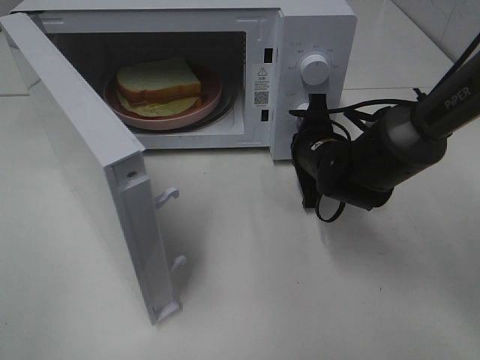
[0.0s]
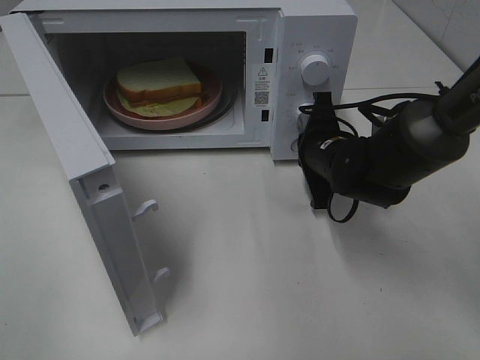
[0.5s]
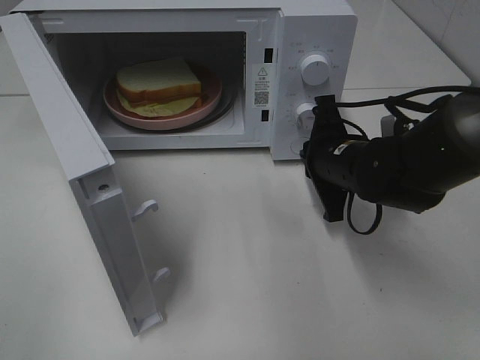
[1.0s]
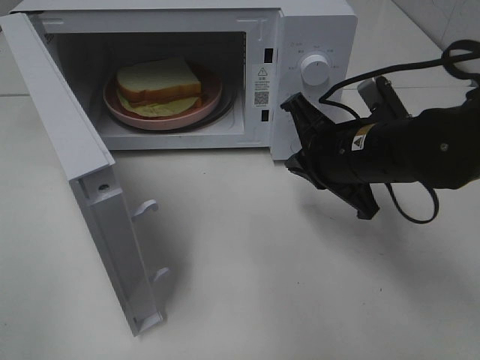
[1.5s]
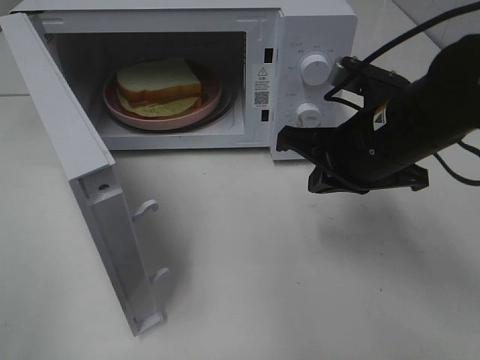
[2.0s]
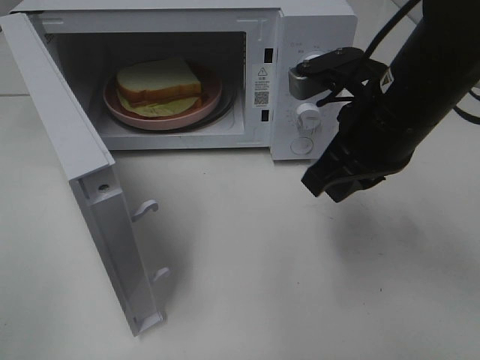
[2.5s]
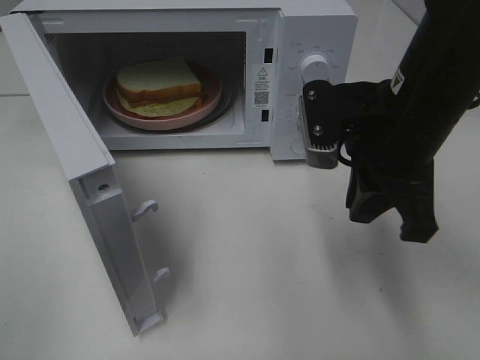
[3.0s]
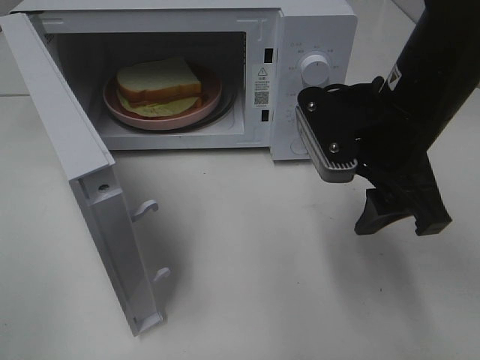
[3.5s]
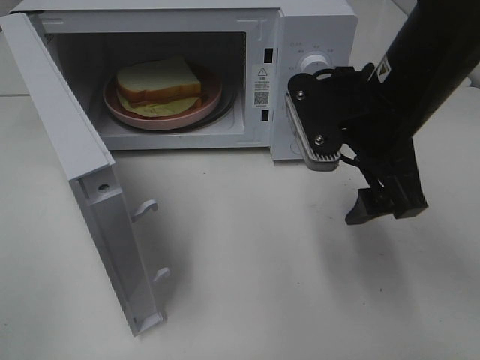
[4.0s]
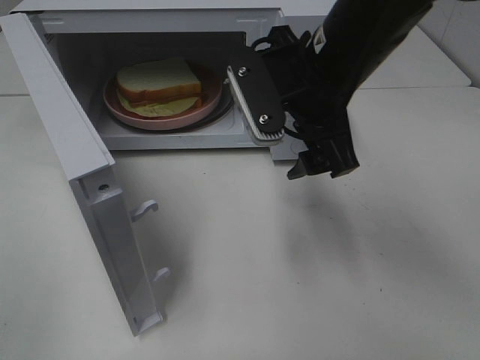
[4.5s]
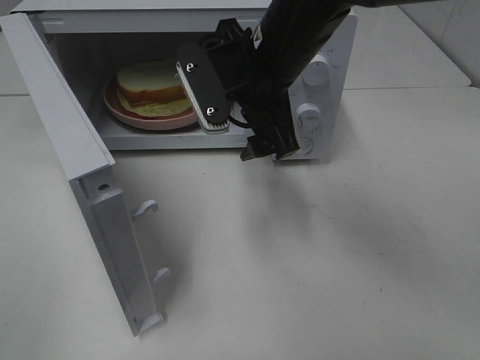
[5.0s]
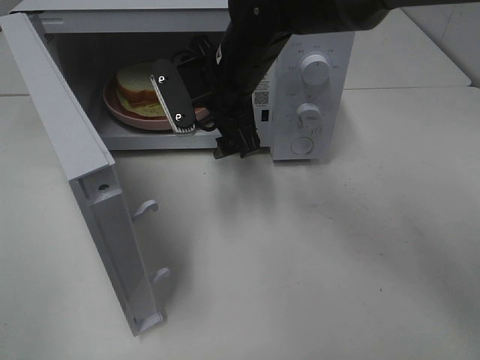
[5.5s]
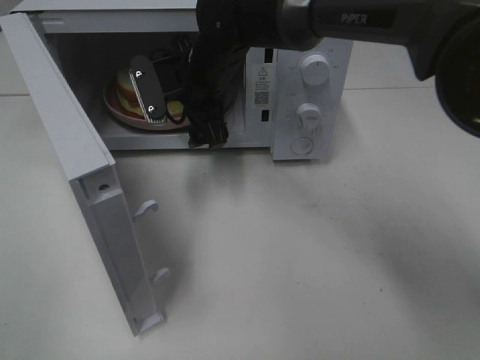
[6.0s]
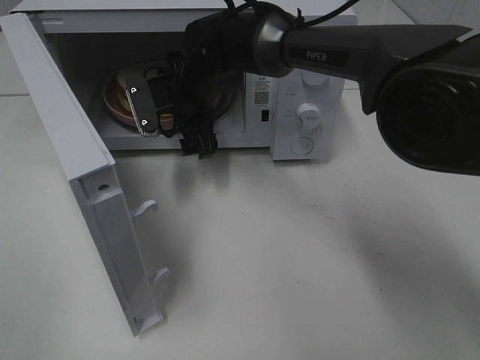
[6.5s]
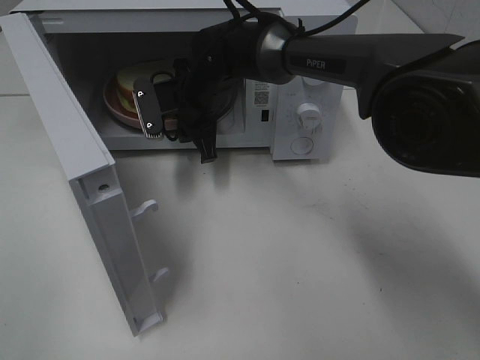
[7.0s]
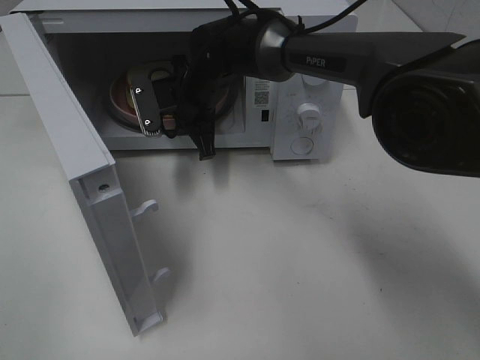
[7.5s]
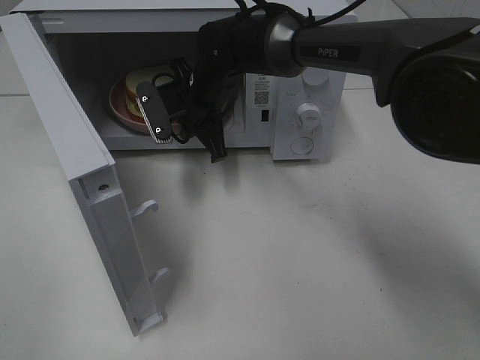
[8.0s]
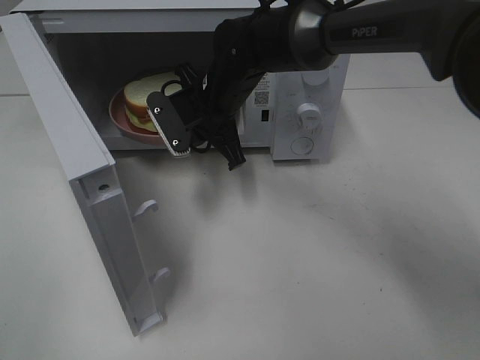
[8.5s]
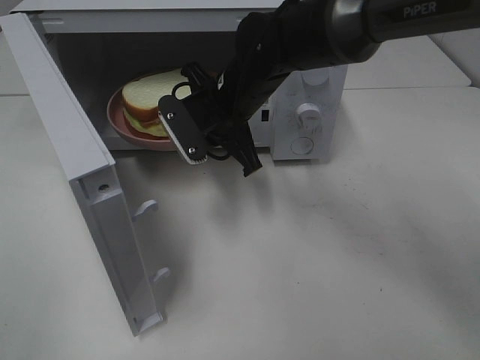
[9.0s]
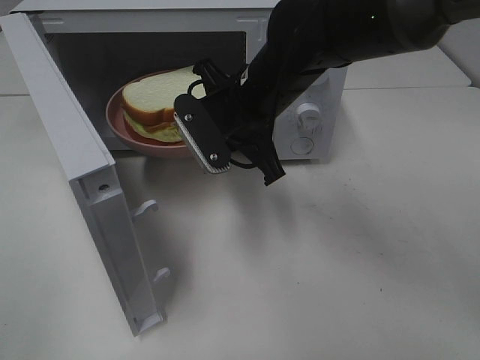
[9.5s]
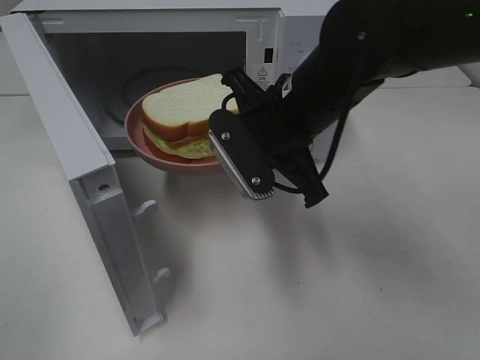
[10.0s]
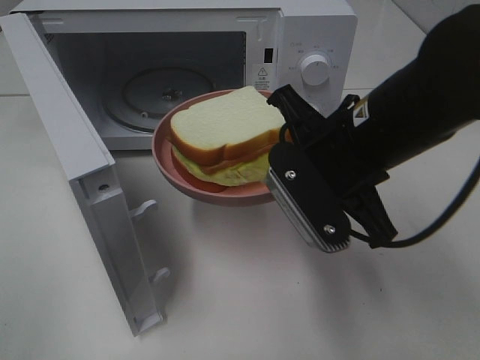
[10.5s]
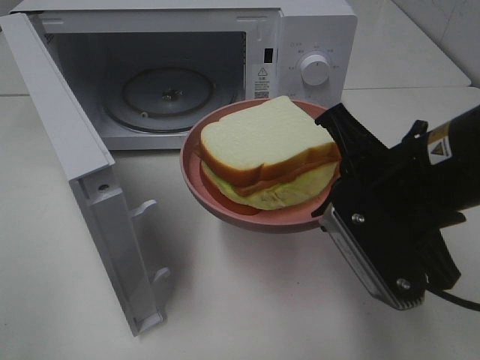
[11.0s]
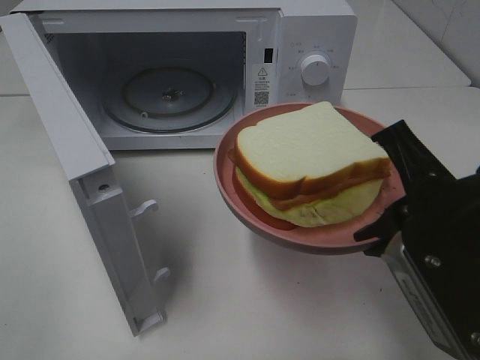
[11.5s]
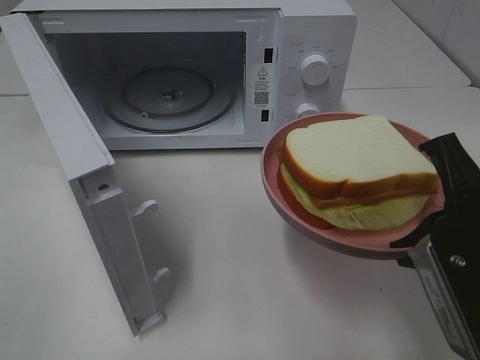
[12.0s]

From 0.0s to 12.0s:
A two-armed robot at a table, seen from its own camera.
Task of the whole recording: Heat Sandwich.
Step, from 1.5s to 7.5s: Right hand: grab the plate with the sandwich.
From 0.0s to 2.0s: The right gripper goes approximately 15 cm upward and backward.
From 2.0s to 4.0s: The right gripper opens up.
From 4.0s to 6.0s: The right gripper is displaced to the left and forward by roughly 25 cm.
From 6.0s to 8.0s: The right gripper closes its fingers.
From 8.0s to 10.0s: The right gripper goes about 20 cm backward, to the right and upward.
From 10.0s to 12.0s: The right gripper shifts approximately 20 cm backward and to the right.

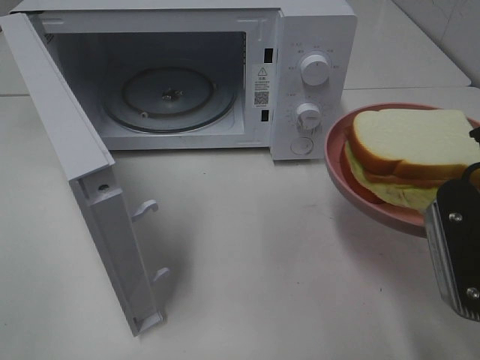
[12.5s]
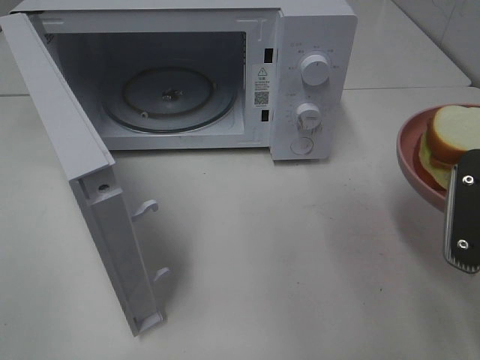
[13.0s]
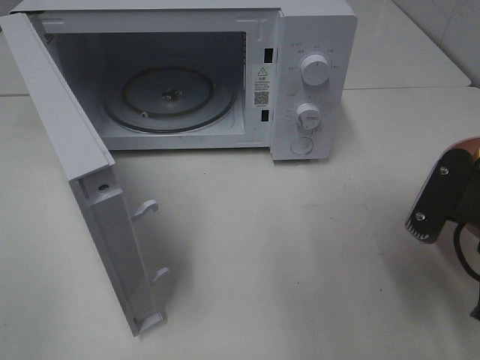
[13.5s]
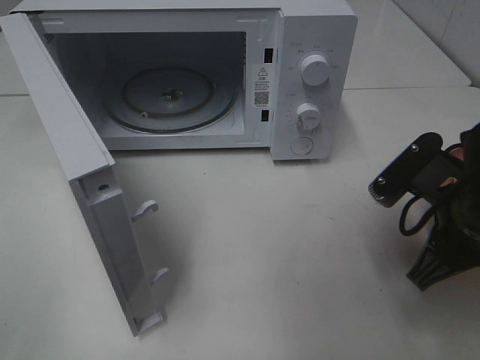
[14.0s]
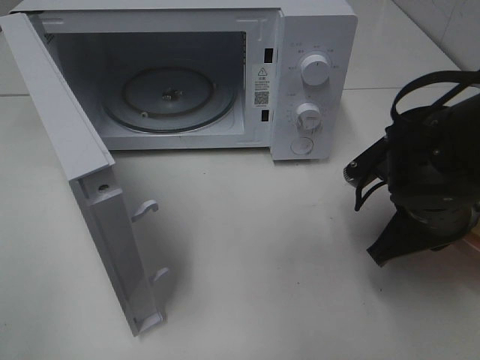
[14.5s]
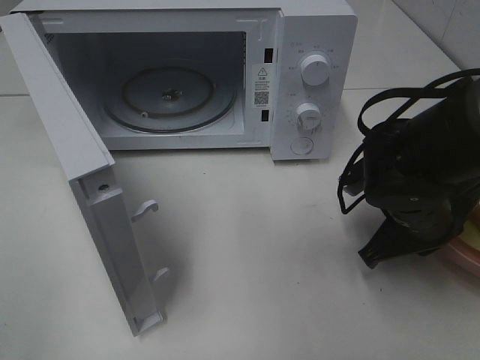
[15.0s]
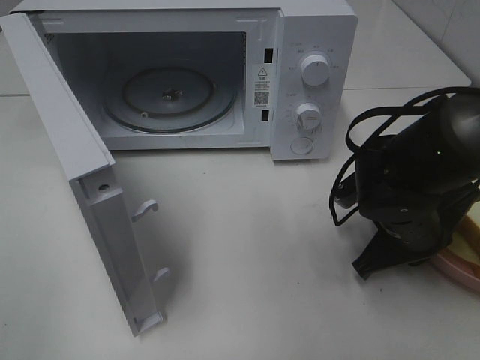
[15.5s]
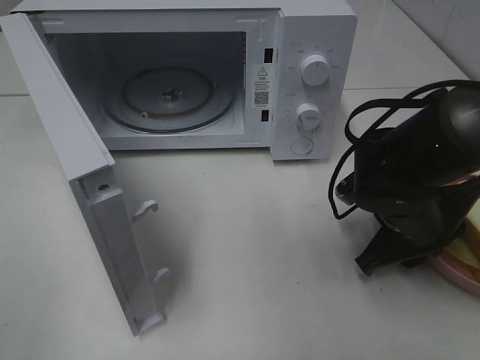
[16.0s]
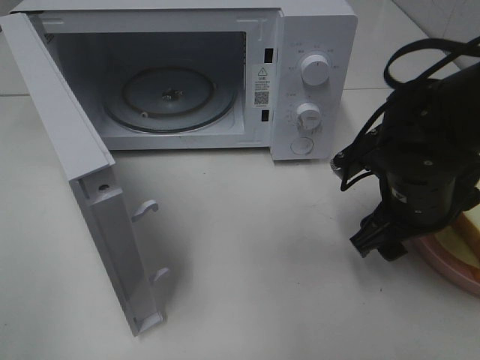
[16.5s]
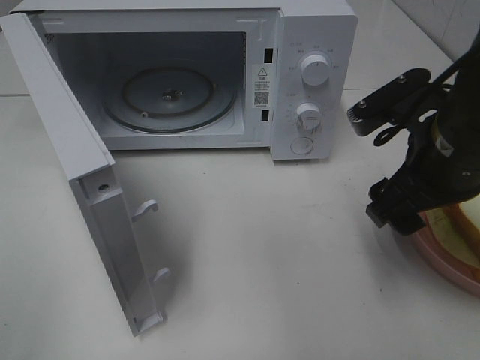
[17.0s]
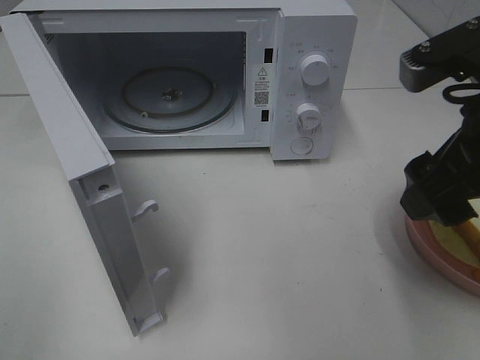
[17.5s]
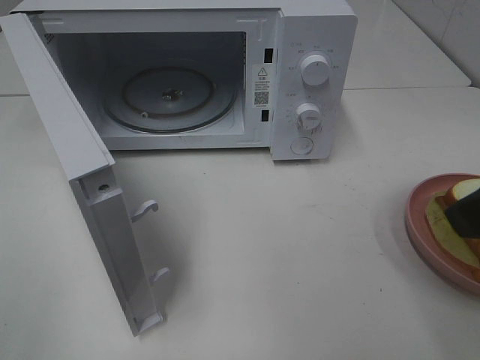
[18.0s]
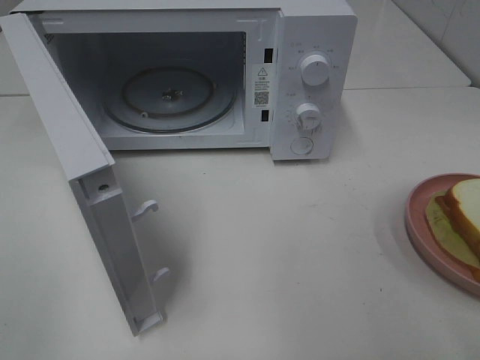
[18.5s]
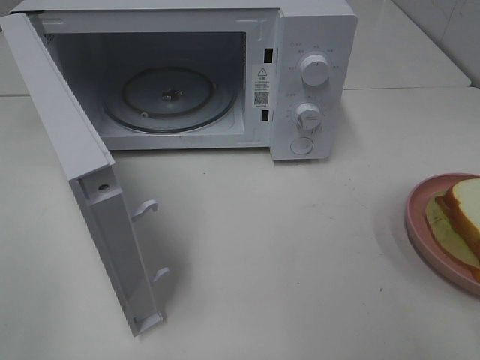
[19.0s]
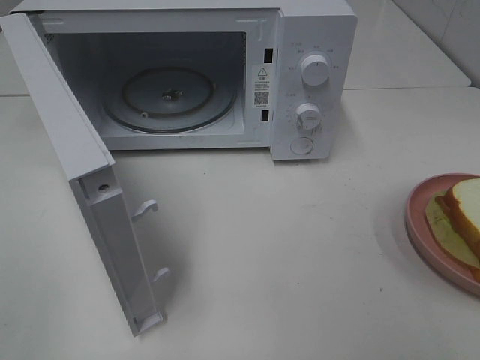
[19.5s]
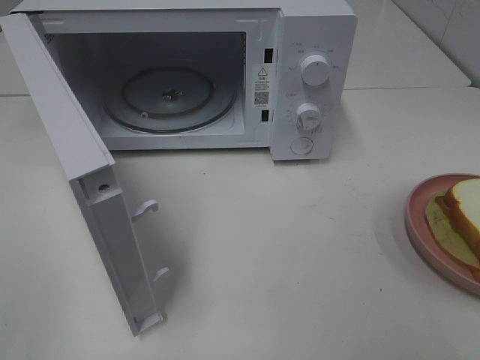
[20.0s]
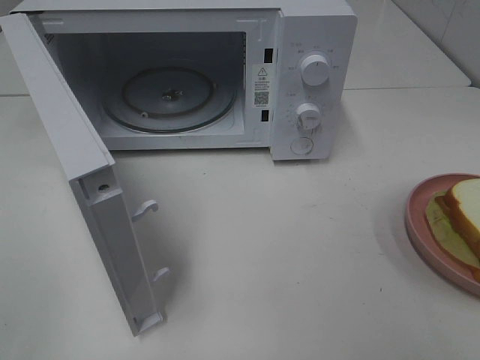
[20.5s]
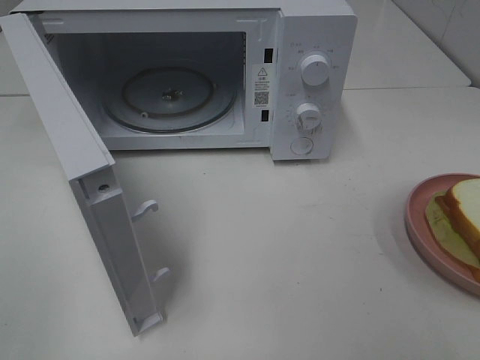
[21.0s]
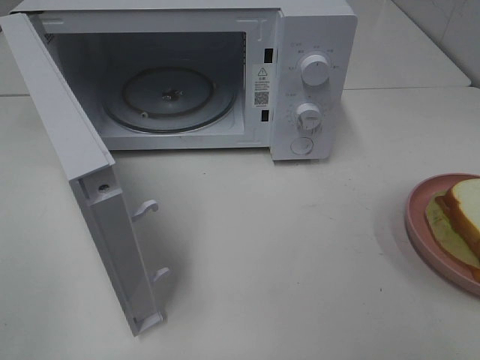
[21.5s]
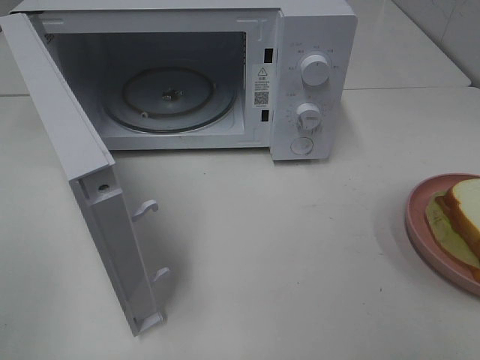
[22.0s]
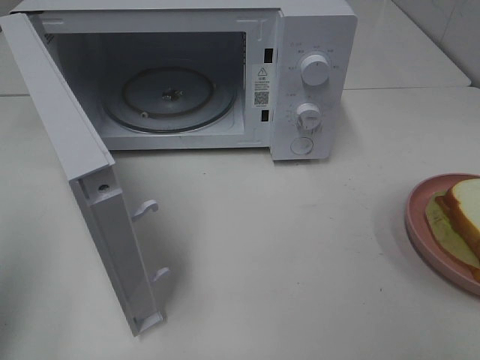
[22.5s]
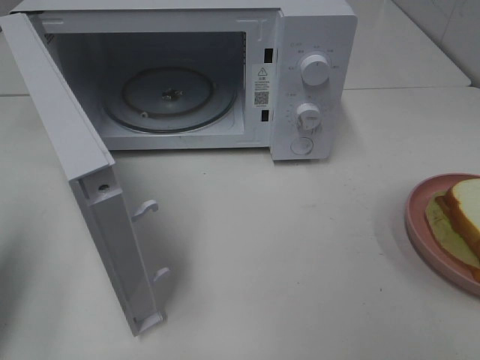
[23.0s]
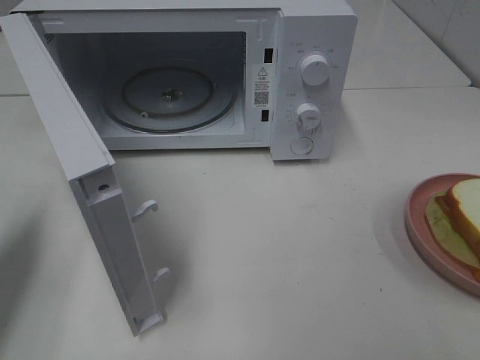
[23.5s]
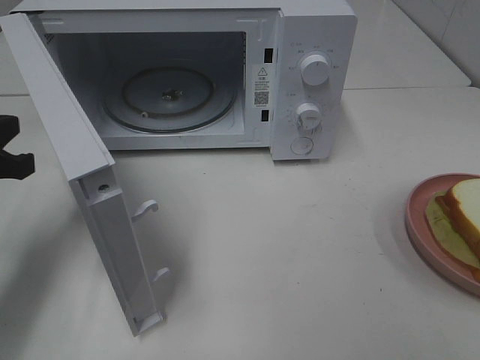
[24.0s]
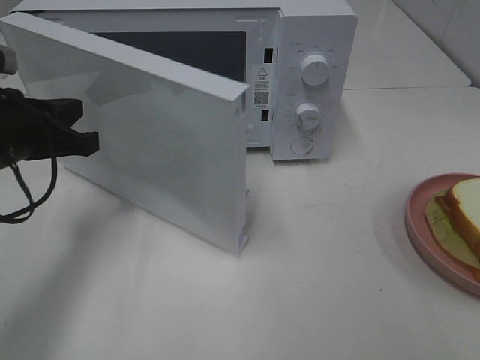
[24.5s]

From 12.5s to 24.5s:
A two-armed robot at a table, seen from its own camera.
Task of the whole recording: Heat Sandwich.
Step, from 12.5s to 17.0s: Right hand: place the plate on the table.
From 12.5s to 14.5s: The right gripper moves forward and downward, about 15 cm.
From 14.5s to 16.5s: The right gripper opens up.
From 16.5s to 18.5s: The right gripper is displaced backward, upward and to the right by approximately 25 cm.
From 20.5s to 22.5s: The left gripper shifts some 10 cm forward, and closes up.
From 22.5s to 24.5s: The left gripper moves forward, downward and to the right, some 25 cm.

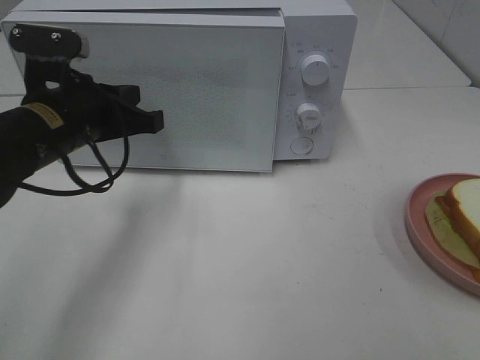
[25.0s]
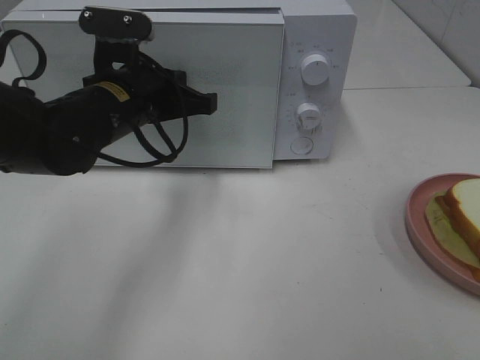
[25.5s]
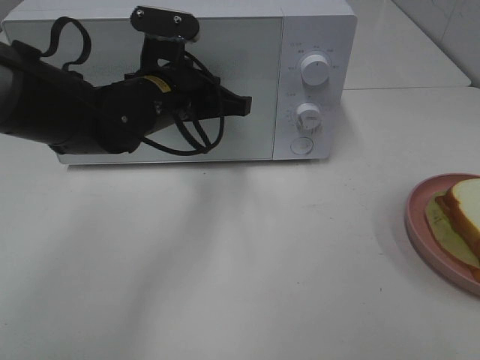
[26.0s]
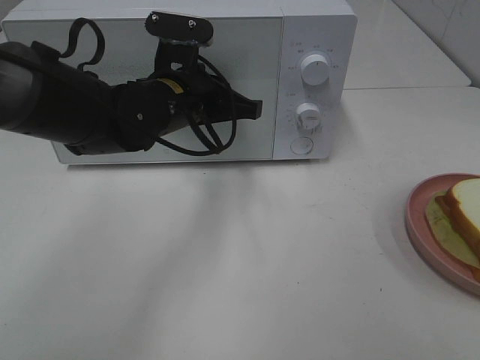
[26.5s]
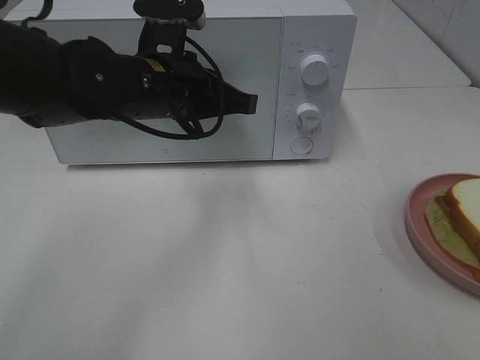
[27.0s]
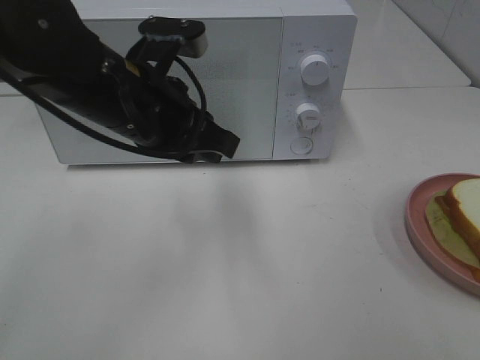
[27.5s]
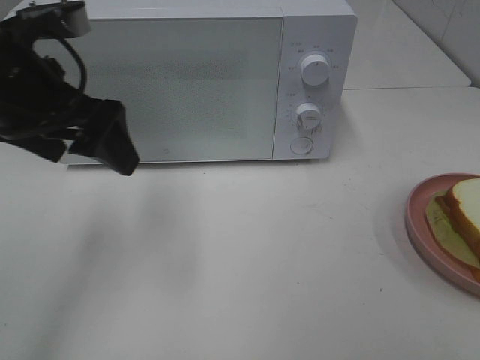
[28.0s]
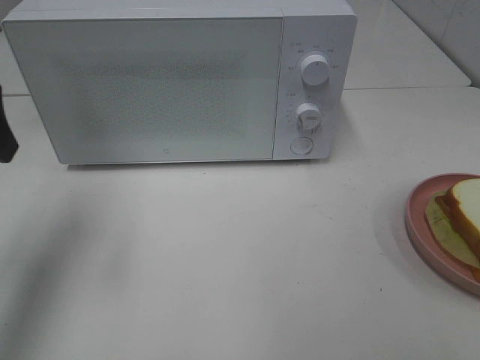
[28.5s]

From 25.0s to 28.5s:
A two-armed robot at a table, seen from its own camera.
Task of the whole recording: Heat Sandwich.
Step, from 25.0s to 27.0s: Left hand: close the microwave door.
From 25.0s to 27.0s: The left gripper shifts some 10 cm to the right.
From 27.0s to 28.5s: The left gripper shifts about 20 cm to the left and upward, and opens.
